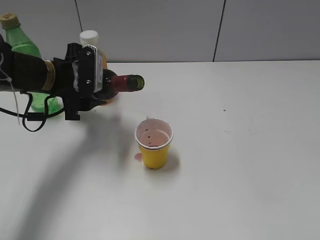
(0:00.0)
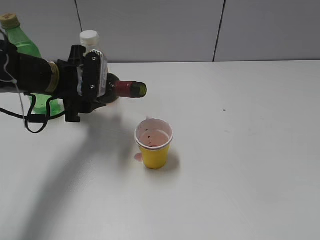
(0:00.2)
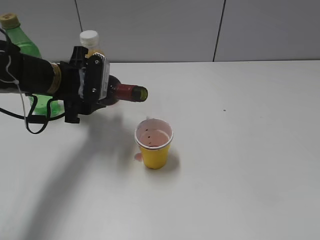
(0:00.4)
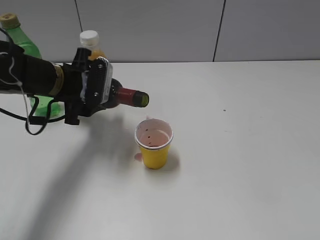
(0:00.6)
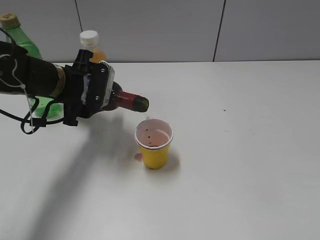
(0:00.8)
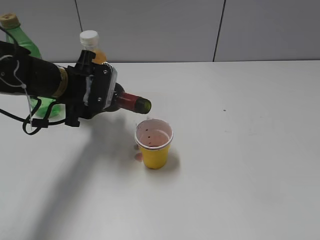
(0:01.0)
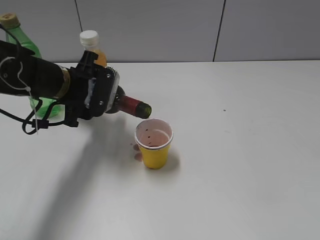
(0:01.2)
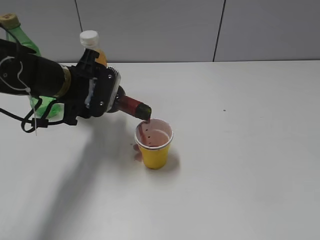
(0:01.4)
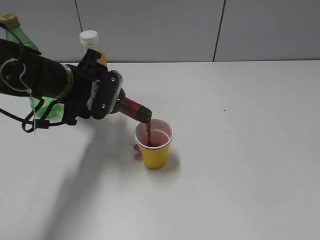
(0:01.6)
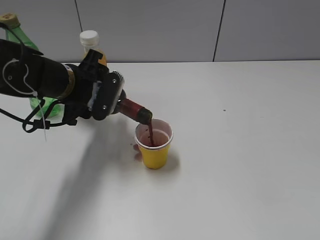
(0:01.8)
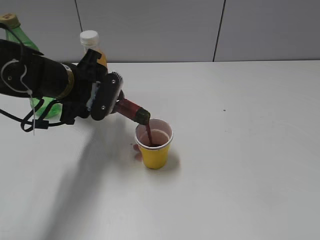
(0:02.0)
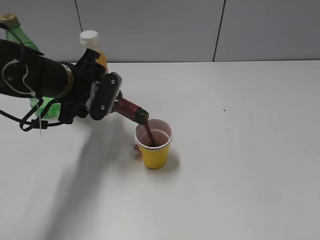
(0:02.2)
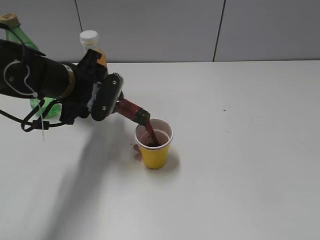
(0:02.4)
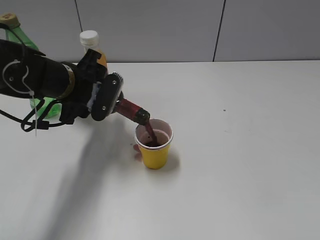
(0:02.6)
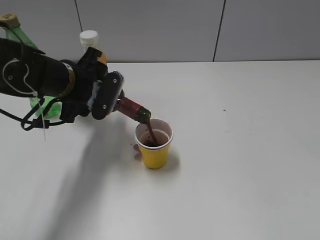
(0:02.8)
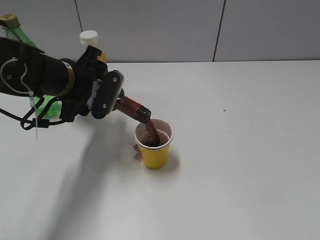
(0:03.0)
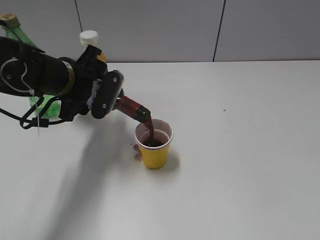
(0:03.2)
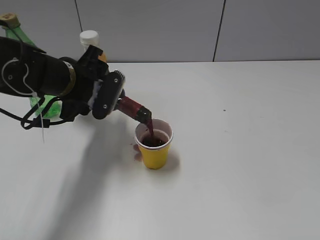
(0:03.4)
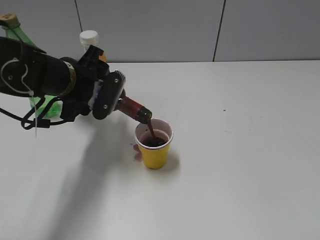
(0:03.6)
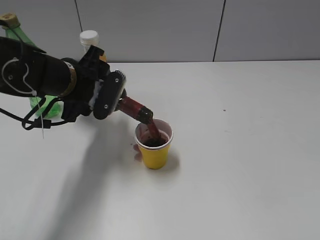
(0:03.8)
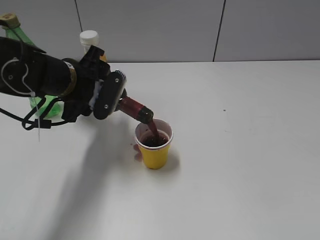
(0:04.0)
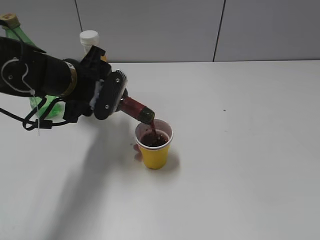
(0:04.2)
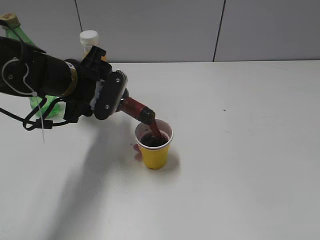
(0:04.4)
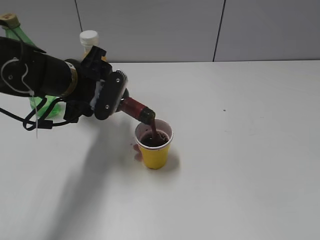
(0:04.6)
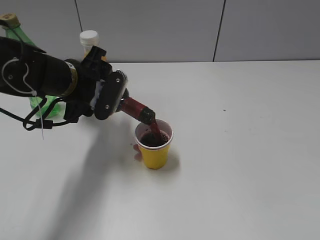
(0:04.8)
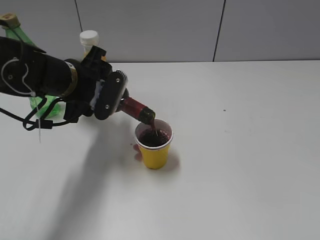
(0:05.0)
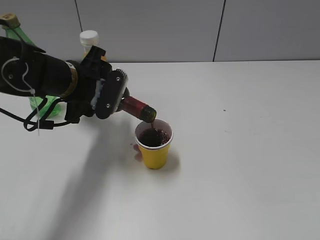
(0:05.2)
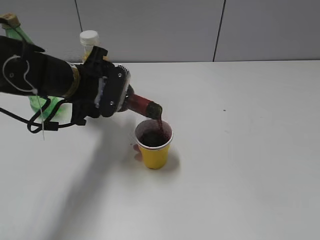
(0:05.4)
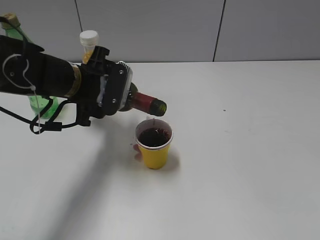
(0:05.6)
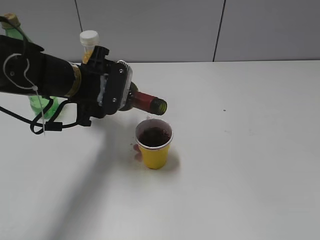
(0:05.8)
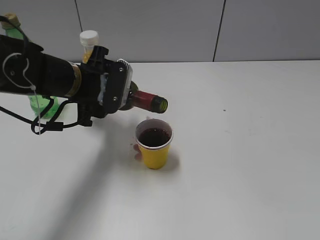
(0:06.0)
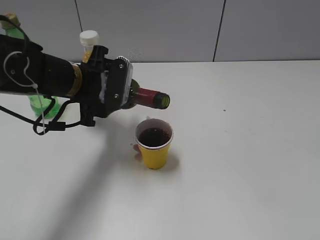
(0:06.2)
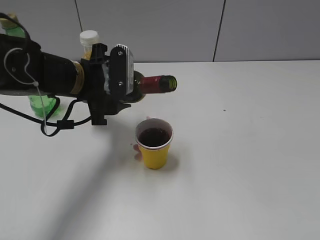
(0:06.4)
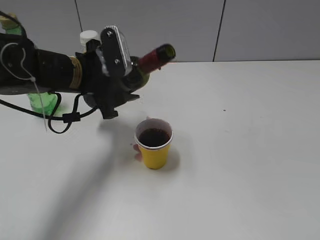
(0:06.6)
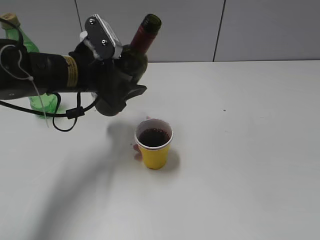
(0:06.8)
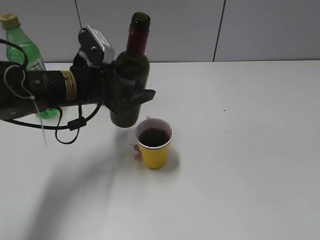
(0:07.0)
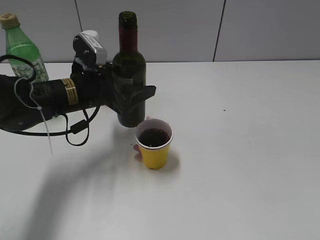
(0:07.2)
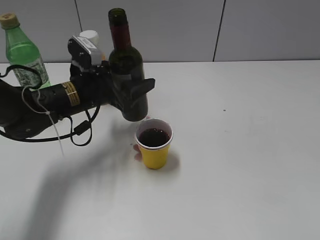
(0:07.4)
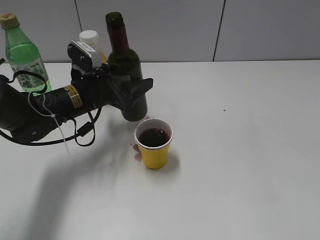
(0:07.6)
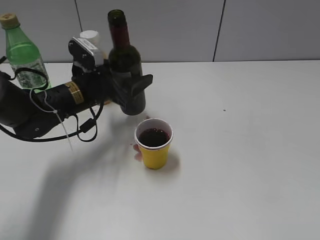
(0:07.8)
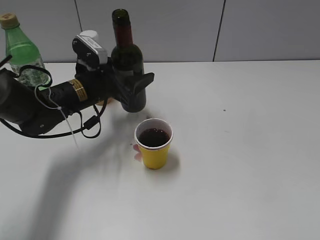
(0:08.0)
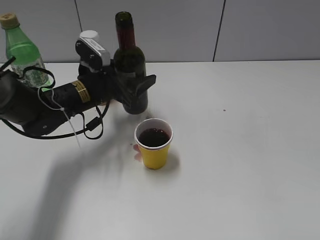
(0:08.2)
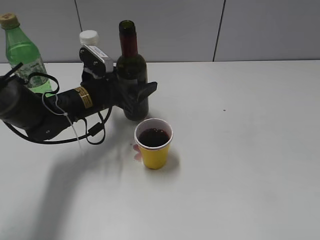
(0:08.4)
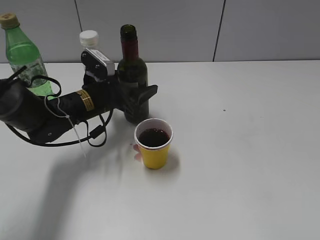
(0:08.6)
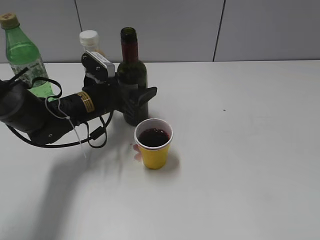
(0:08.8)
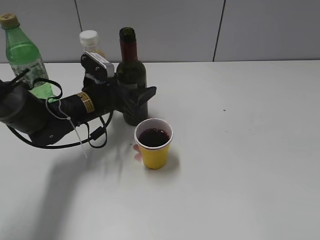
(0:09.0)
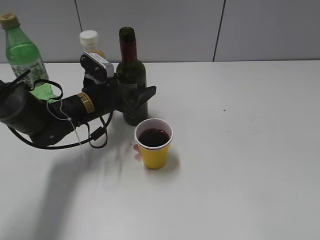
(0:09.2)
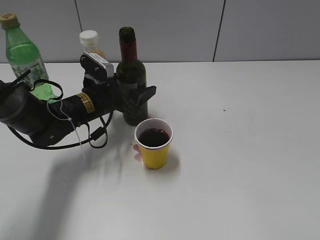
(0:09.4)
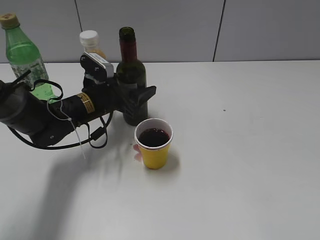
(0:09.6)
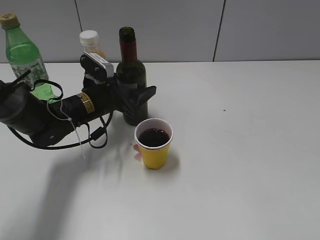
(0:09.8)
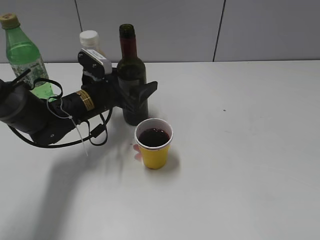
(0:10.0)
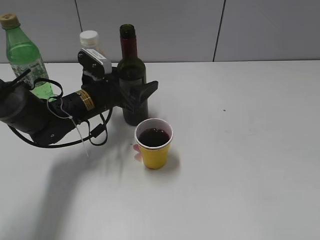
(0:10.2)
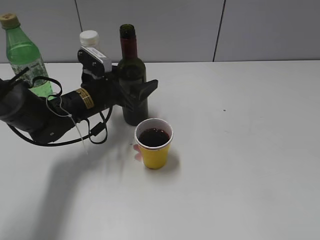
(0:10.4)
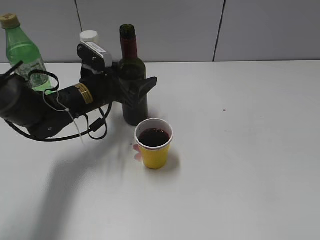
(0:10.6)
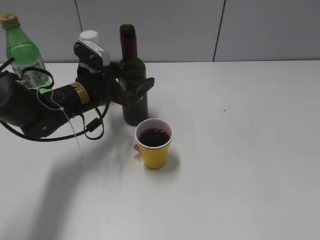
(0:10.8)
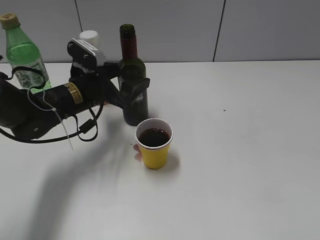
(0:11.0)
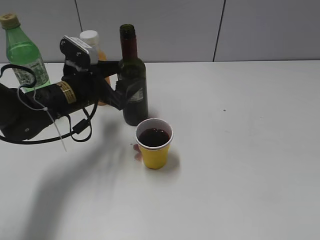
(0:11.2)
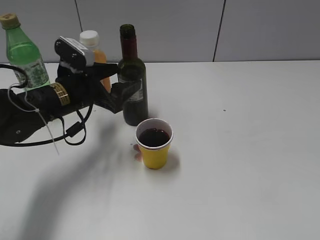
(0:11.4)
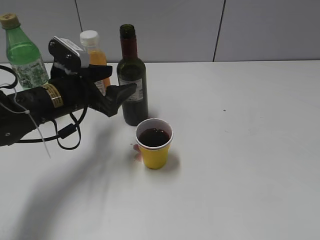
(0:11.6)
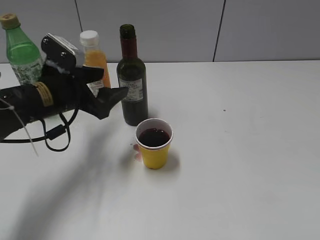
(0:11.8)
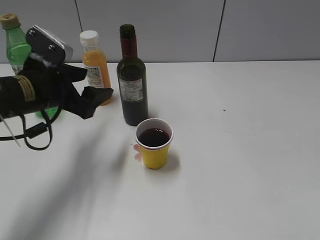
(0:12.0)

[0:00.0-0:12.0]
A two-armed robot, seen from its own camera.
Step, 0:00.0 to 0:06.0: Pour the red wine from bottle to cup with left gripper.
Step, 0:06.2 to 0:11.6: Place the red wine bottle on the table with left gripper.
0:01.6 to 0:03.0: Both grippers stay put.
0:03.0 to 0:04.4: The two grippers keep their place.
0:04.4 to 0:06.0: There are only small adjustments of the grippers.
0:06.0 to 0:07.6: The left gripper travels downward by some 5 cm.
0:07.6 to 0:09.0: The grippers stay close to where they were, moving slightly.
0:09.0 to 0:10.4: The two grippers keep their place.
0:10.4 to 0:12.0: The left gripper is displaced backward, upward and to the left by about 10 cm.

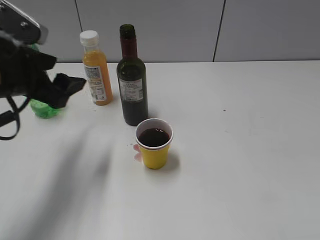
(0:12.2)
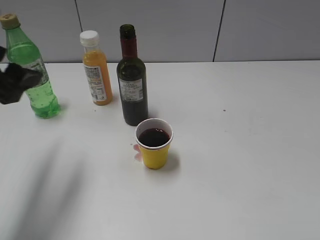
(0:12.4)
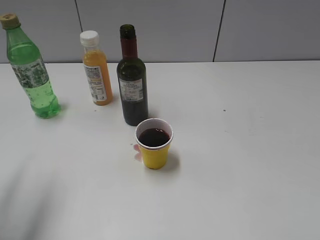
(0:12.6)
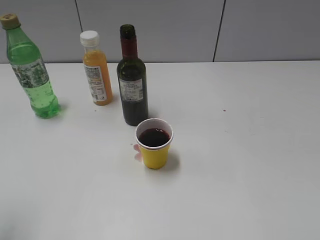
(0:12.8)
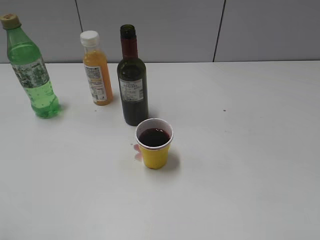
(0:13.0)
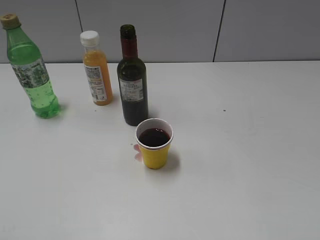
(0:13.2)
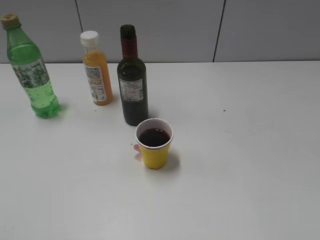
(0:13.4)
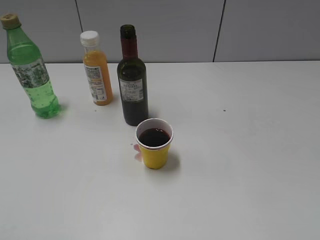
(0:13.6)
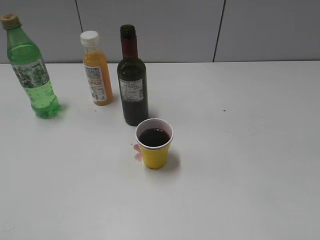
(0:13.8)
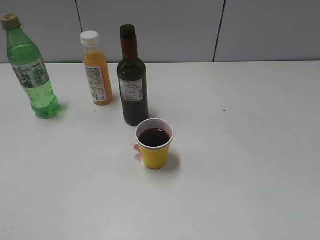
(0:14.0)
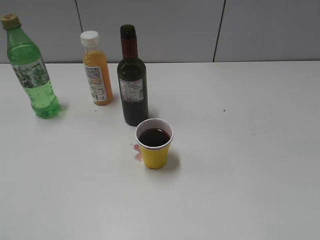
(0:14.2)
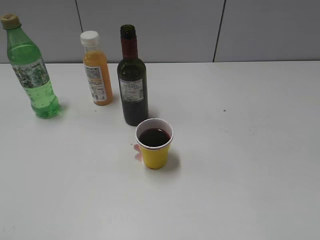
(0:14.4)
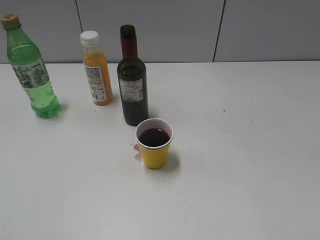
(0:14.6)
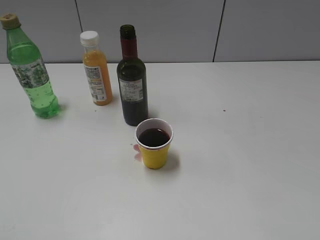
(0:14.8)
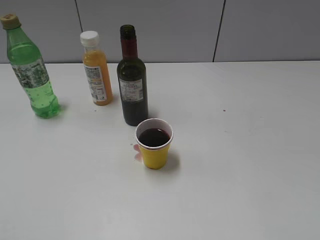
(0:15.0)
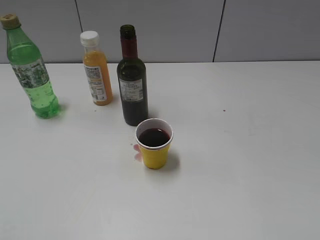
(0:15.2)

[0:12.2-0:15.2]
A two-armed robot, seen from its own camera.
0:12.2 to 0:13.8: The left gripper goes about 30 cm backward, and closes its fingers.

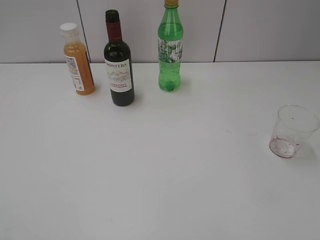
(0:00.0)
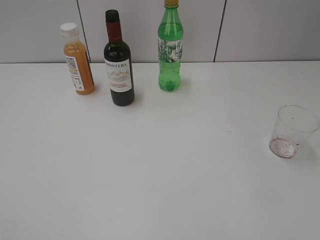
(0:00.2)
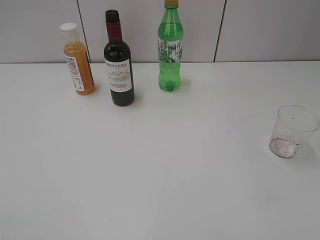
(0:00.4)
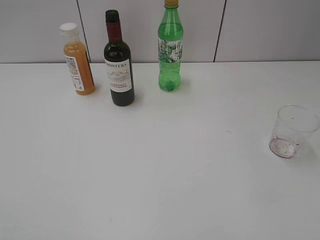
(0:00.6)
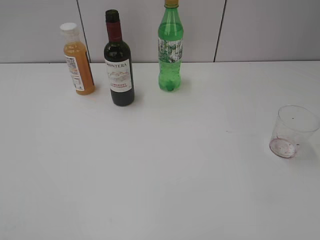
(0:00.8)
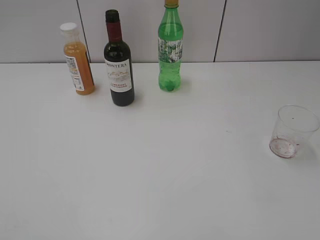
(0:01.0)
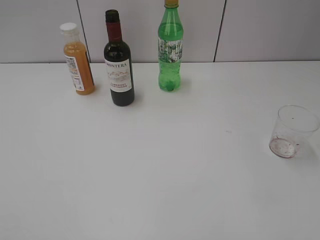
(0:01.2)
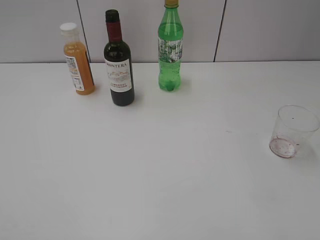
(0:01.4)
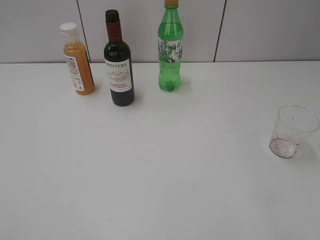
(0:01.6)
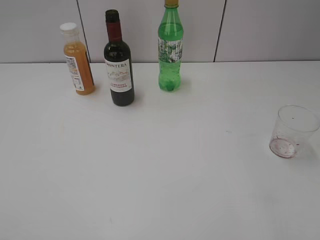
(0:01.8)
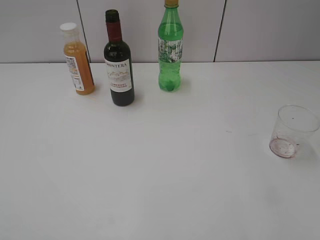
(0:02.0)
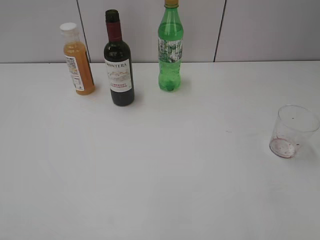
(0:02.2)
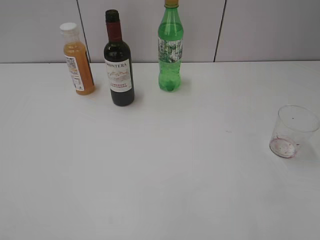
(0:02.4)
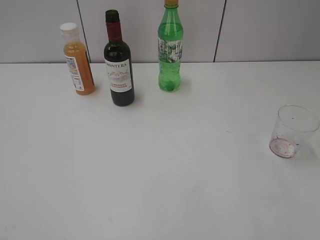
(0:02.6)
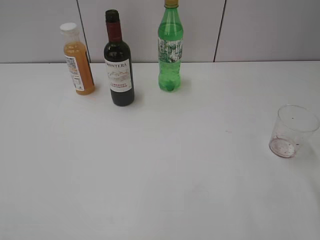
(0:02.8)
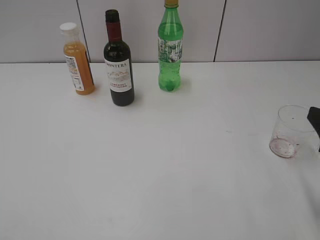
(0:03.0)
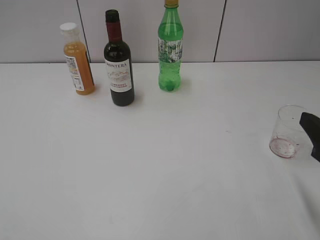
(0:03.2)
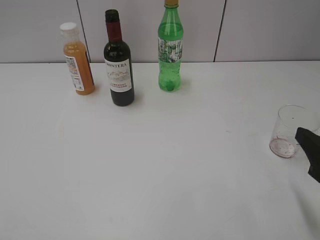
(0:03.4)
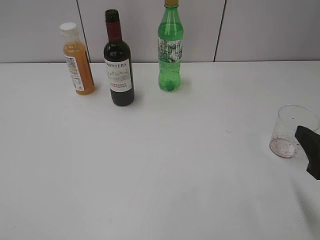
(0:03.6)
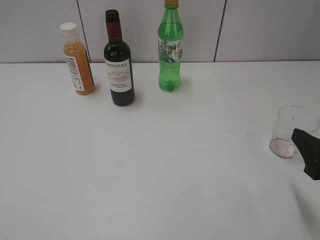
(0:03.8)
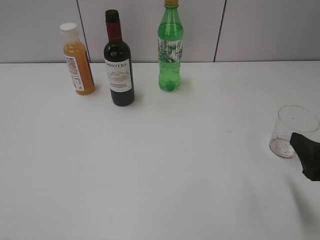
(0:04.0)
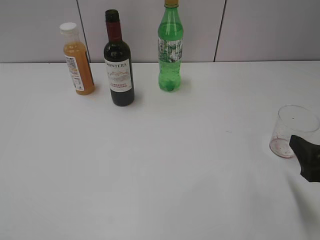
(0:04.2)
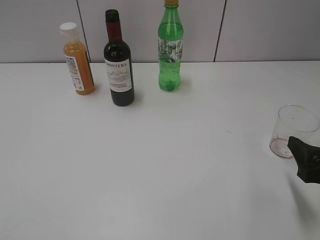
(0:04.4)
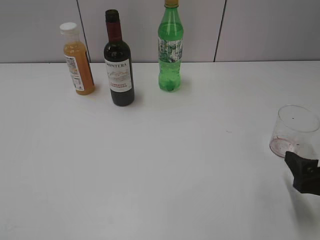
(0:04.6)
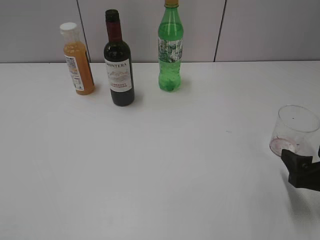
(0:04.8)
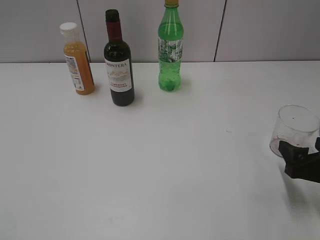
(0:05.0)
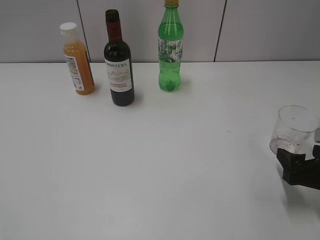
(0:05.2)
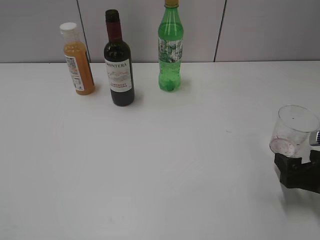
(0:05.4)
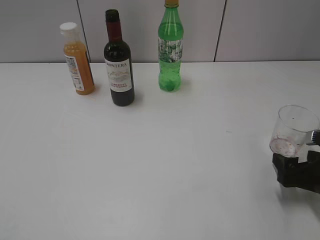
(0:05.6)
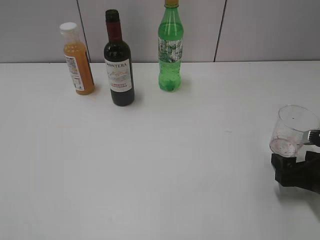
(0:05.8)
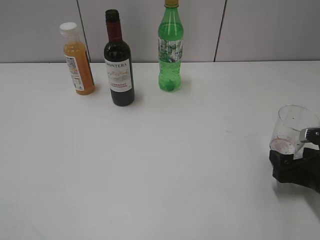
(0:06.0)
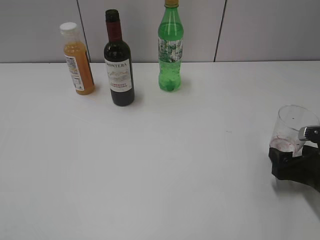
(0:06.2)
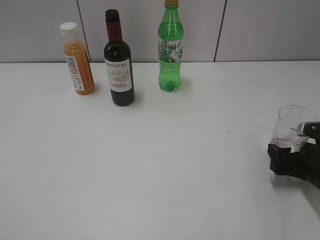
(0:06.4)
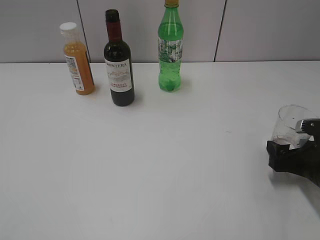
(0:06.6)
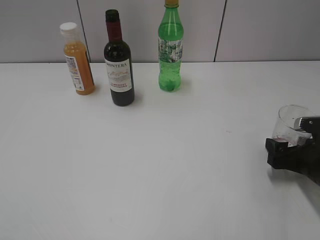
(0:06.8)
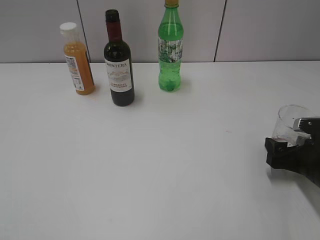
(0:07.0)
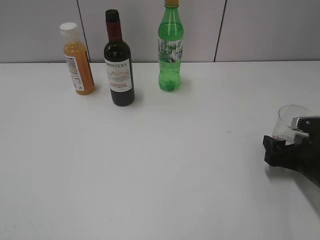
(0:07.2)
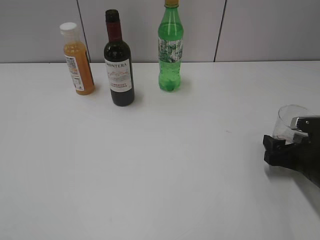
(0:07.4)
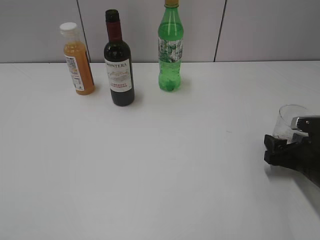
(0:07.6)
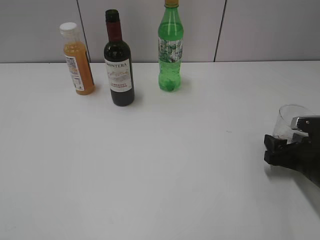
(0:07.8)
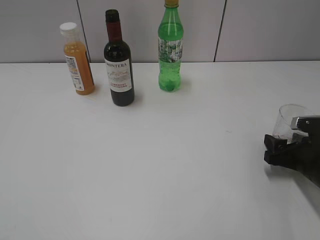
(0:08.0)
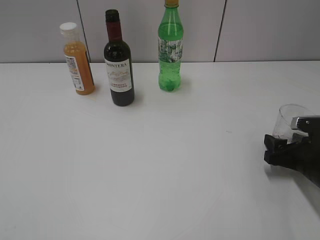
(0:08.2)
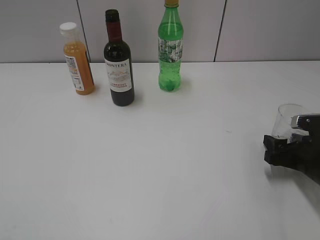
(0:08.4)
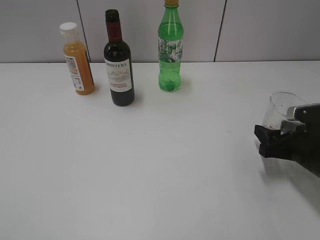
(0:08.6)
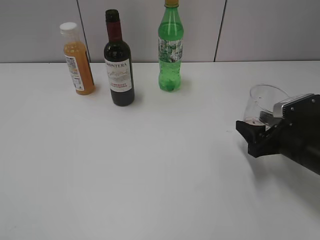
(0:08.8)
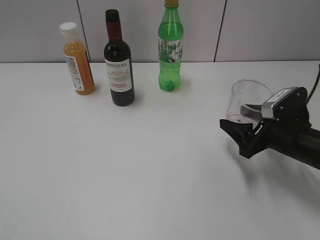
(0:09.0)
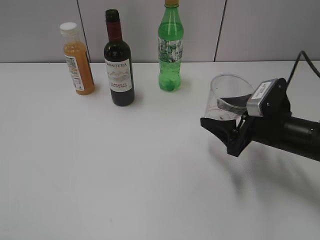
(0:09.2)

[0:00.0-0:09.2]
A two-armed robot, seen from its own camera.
Step, 0:01.0 to 0:08.0: Grasp the transparent cup with right gripper.
0:03.0 to 0:04.6: The right gripper moves downward, about 10 cm, and opens up.
0:04.6 to 0:06.2: The right gripper shifts about 5 cm downward and forward.
0:06.2 to 0:07.6: The right gripper closes its fingers.
0:07.6 to 0:09.2: The right gripper is displaced to the left and upward by some 10 cm.
